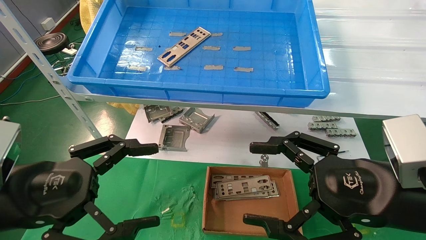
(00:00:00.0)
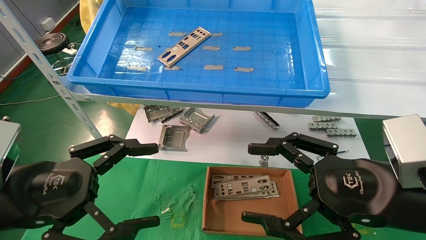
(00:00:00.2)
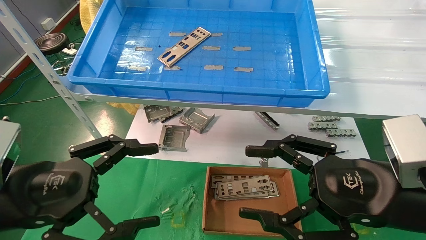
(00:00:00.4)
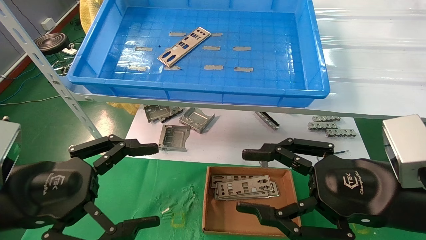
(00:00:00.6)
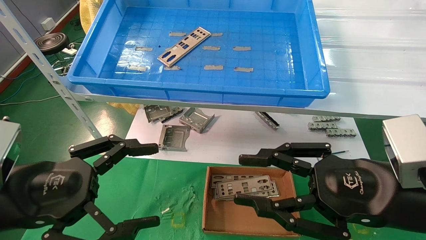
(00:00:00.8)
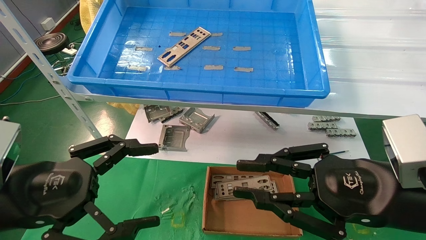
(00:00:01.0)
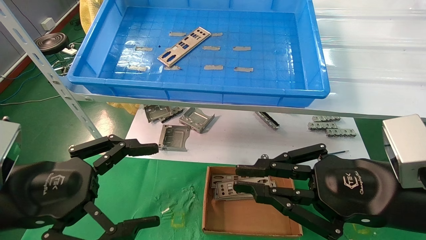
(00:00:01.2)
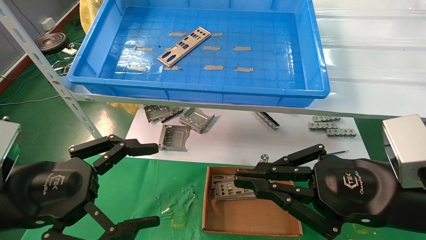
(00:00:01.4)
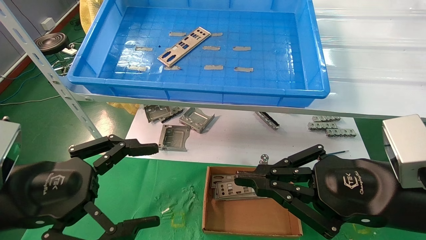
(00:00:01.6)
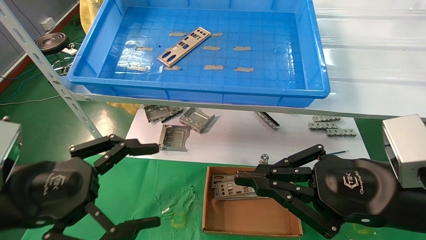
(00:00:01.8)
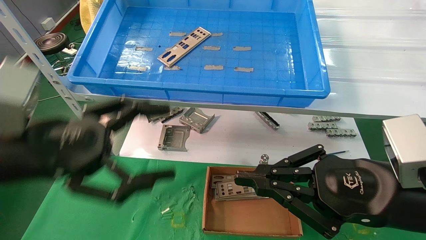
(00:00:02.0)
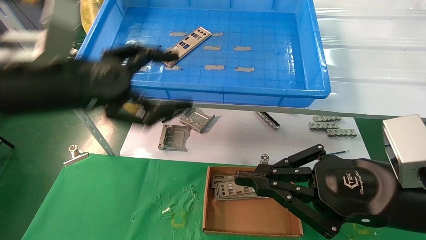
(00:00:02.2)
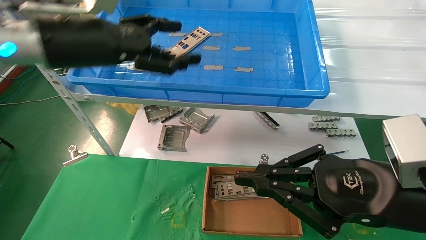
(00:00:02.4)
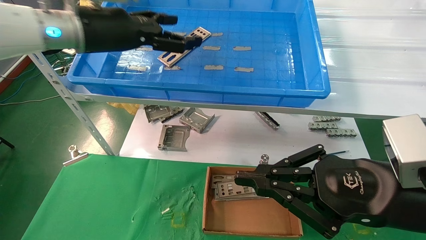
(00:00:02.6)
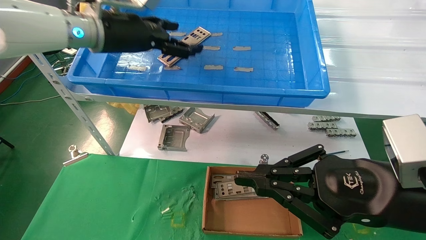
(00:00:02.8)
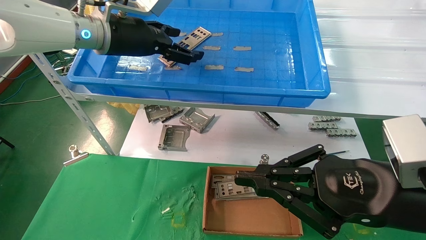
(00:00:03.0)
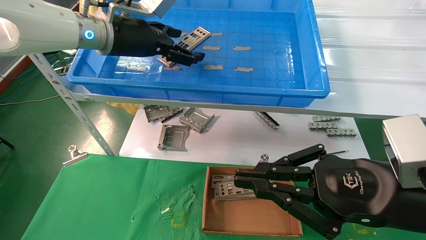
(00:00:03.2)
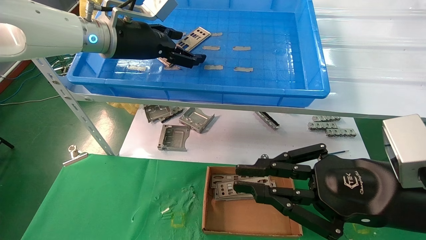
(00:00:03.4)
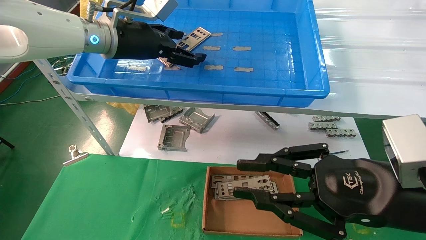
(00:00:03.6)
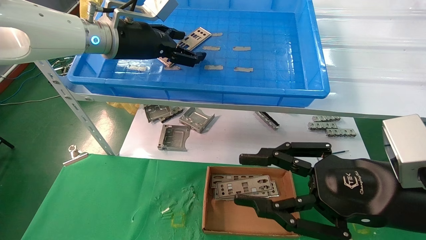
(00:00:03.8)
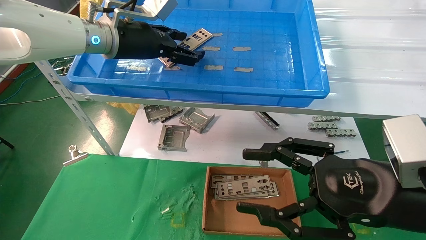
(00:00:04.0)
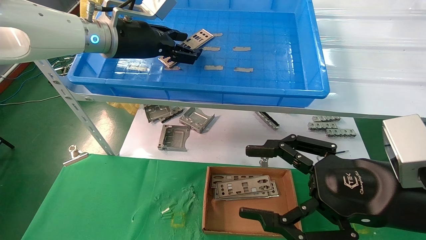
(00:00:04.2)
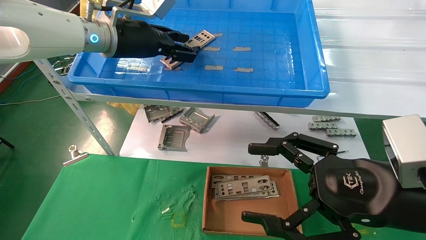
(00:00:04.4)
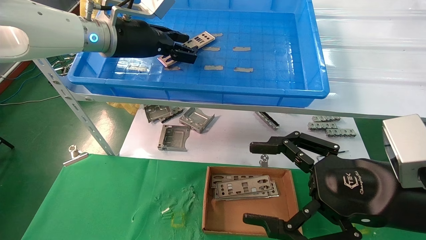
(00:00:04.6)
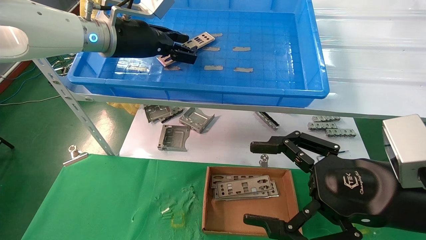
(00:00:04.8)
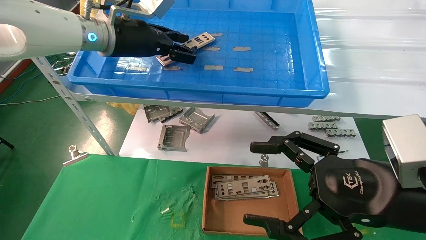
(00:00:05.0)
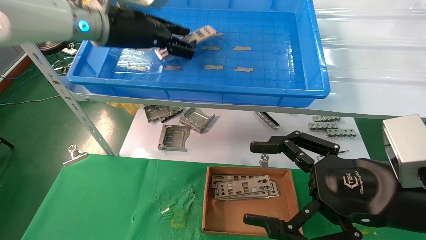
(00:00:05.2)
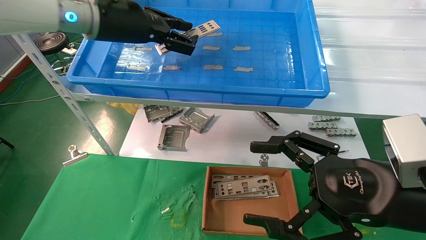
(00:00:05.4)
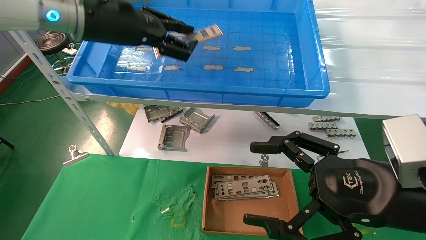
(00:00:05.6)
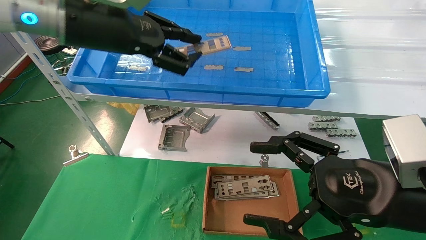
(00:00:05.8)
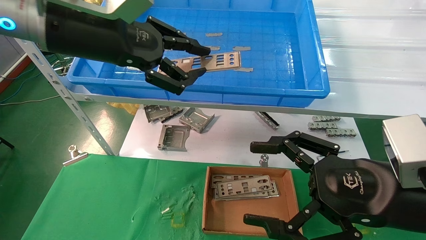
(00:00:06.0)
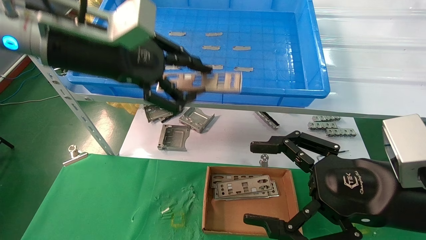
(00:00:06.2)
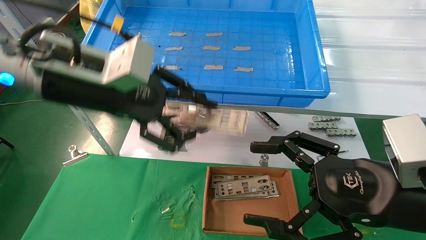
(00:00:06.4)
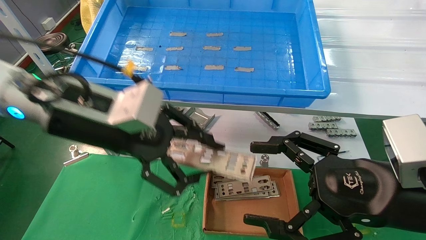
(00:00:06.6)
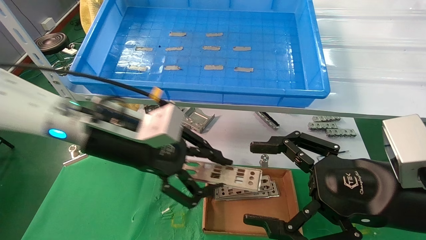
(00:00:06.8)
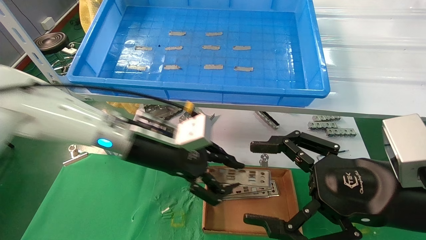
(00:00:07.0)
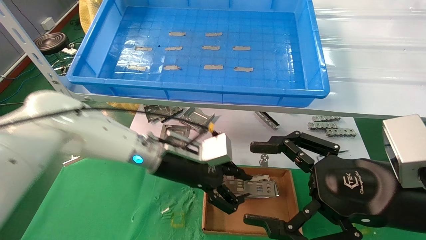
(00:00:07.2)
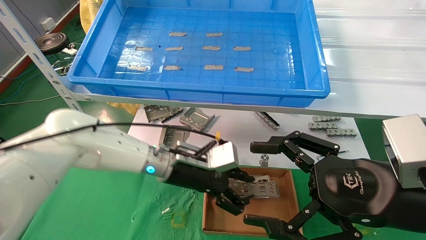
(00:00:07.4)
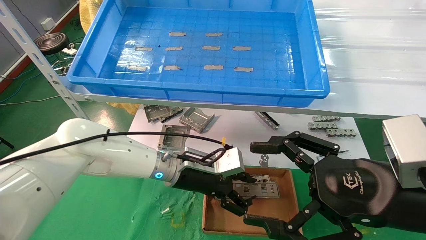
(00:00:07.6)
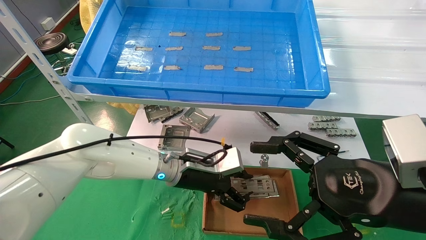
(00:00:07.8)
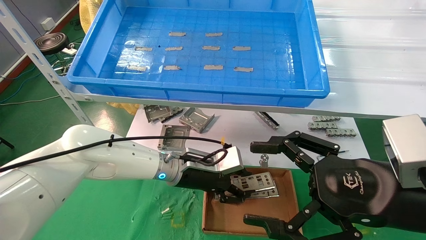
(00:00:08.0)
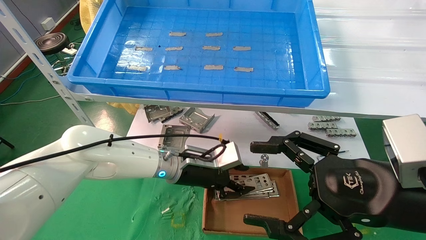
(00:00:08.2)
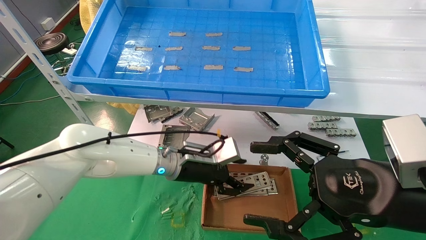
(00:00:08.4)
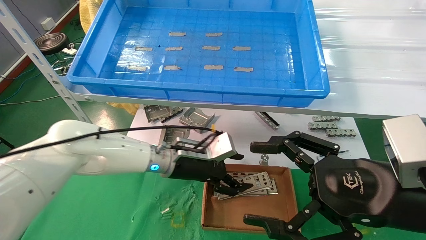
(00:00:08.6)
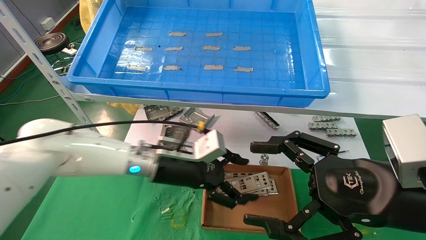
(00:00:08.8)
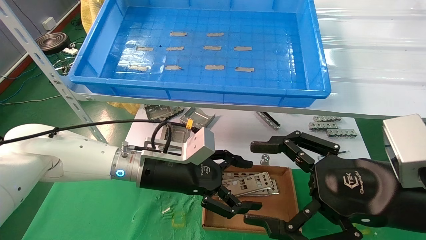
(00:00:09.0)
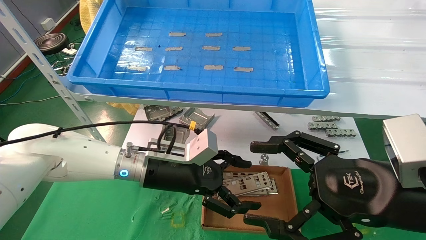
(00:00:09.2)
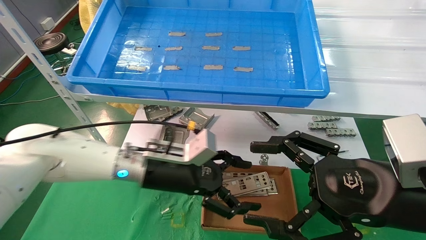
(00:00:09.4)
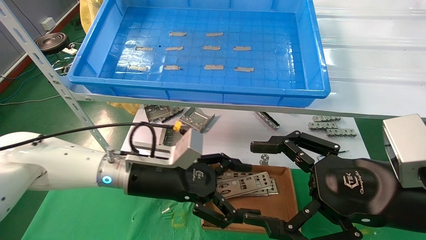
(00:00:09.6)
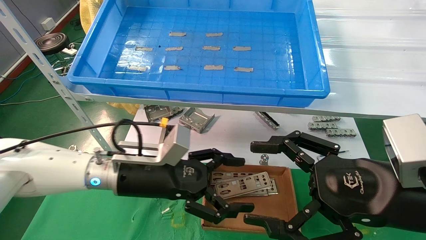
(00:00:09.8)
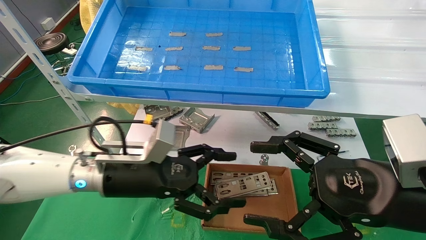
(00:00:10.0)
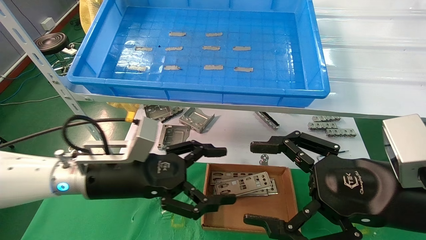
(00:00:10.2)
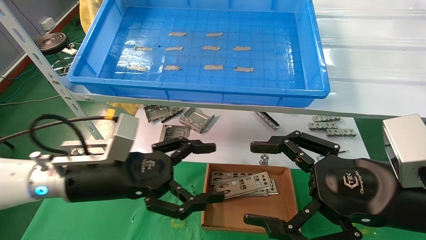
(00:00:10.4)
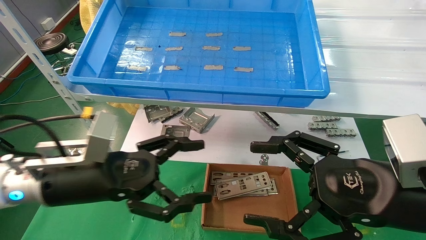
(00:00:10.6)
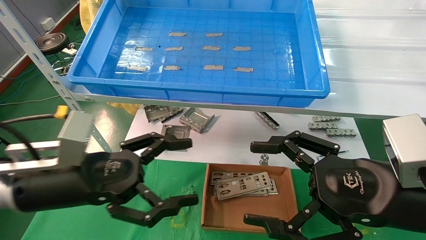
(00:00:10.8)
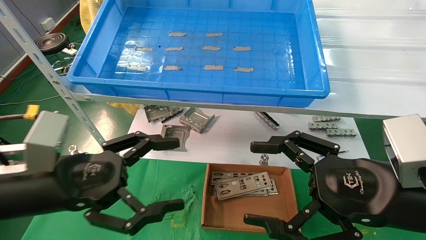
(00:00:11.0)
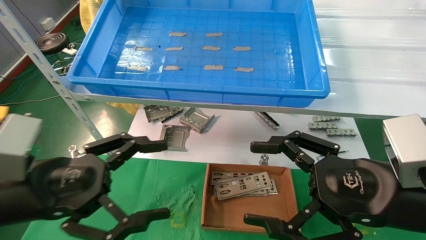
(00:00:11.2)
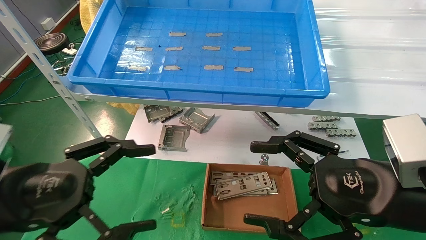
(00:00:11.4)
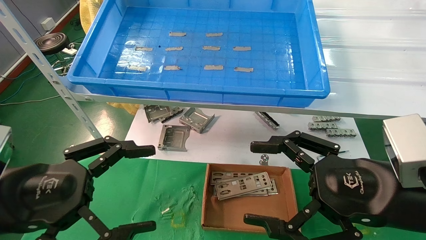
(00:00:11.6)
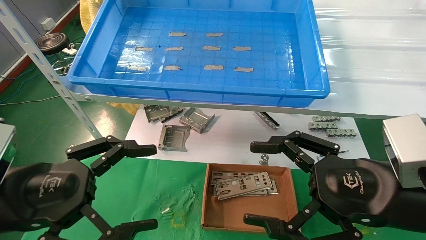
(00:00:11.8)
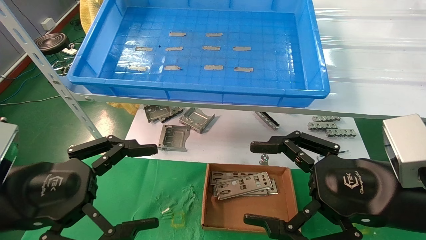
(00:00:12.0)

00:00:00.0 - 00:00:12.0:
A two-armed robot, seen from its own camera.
Task of the whole recording: pick up the parts on the tray and put them in the cardboard box.
Step, 00:00:02.2 - 00:00:04.4: Pick up the IO bracket from the container box.
Step, 00:00:04.6 - 00:00:08.6: Place the IO bracket into the ingredient slot.
00:00:00.0 - 00:00:01.6: The right gripper closes its fingers.
00:00:01.6 - 00:00:03.0: The left gripper heads forward, upward and to the right, covering some 30 cm.
00:00:03.0 - 00:00:04.4: The right gripper opens its fingers. The left gripper closes its fingers.
00:00:04.4 - 00:00:06.0: The left gripper travels backward by roughly 10 cm.
00:00:06.0 - 00:00:07.6: The left gripper travels downward and to the right by some 30 cm.
00:00:07.6 - 00:00:09.0: The left gripper shifts by some 5 cm, and opens its fingers.
00:00:09.0 - 00:00:10.4: The left gripper is displaced to the left and backward by some 10 cm.
00:00:10.4 - 00:00:12.0: The left gripper heads backward and to the left, covering approximately 15 cm.

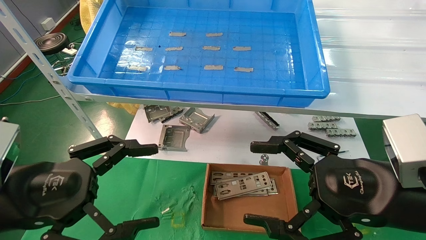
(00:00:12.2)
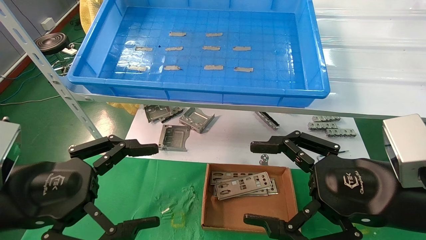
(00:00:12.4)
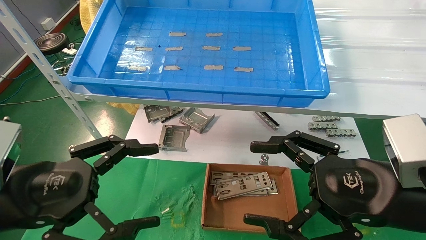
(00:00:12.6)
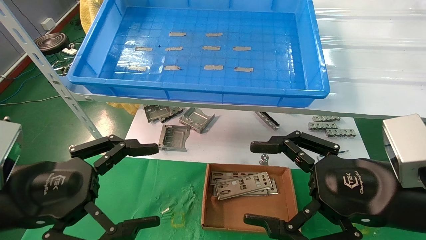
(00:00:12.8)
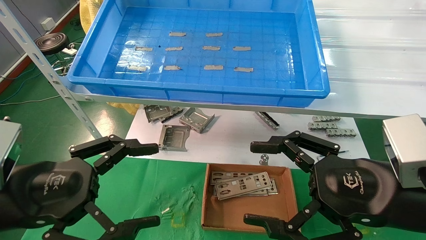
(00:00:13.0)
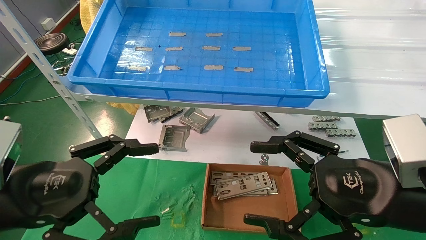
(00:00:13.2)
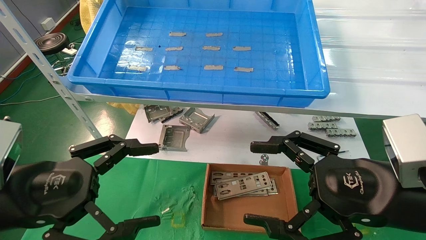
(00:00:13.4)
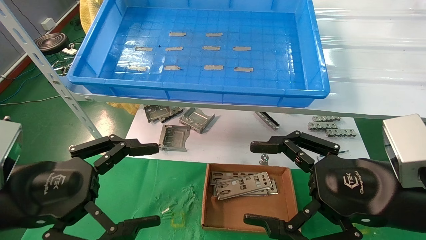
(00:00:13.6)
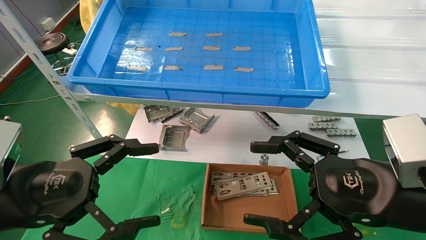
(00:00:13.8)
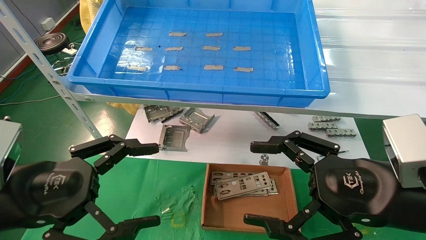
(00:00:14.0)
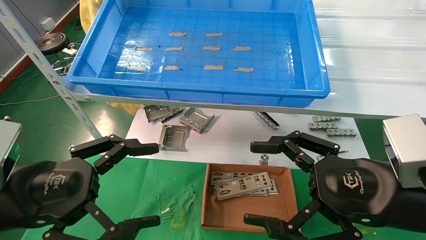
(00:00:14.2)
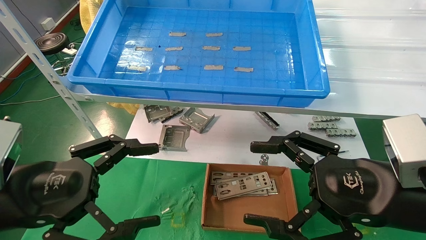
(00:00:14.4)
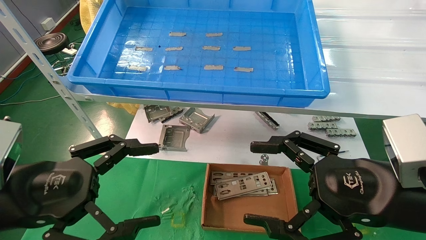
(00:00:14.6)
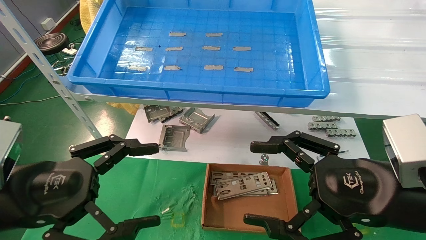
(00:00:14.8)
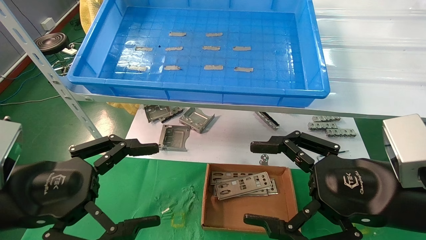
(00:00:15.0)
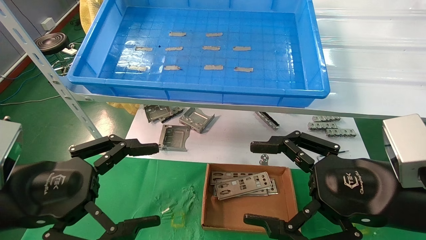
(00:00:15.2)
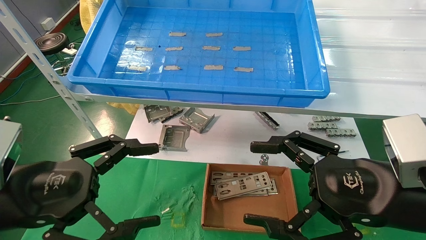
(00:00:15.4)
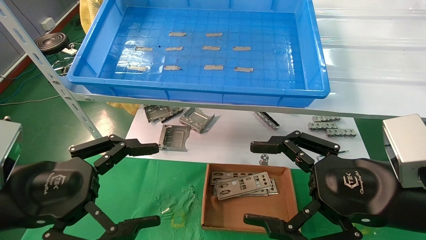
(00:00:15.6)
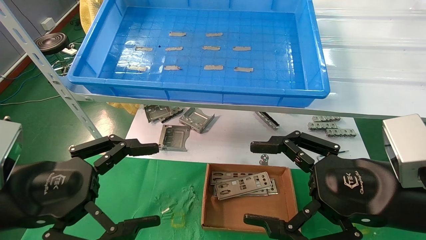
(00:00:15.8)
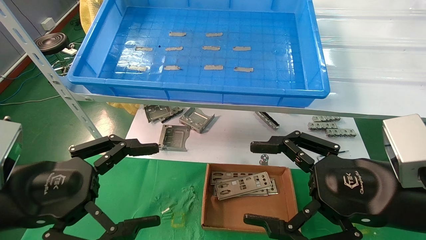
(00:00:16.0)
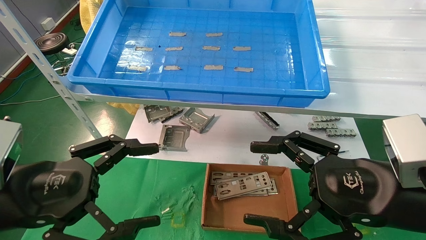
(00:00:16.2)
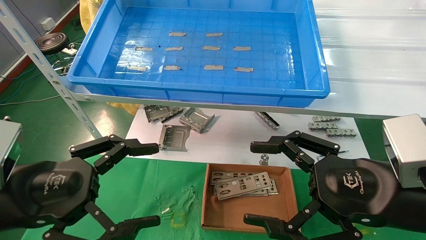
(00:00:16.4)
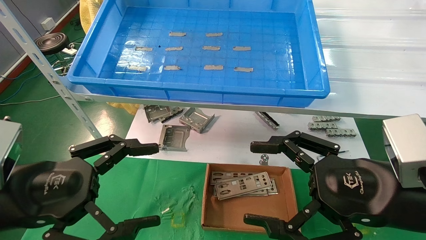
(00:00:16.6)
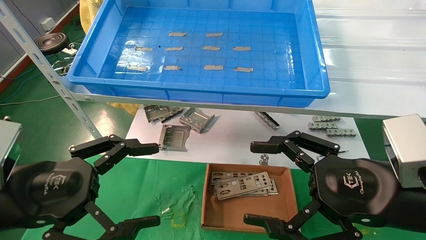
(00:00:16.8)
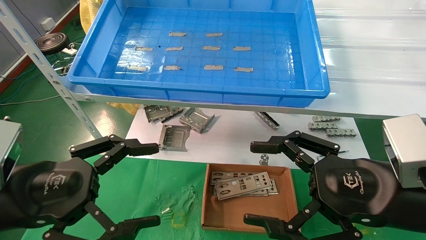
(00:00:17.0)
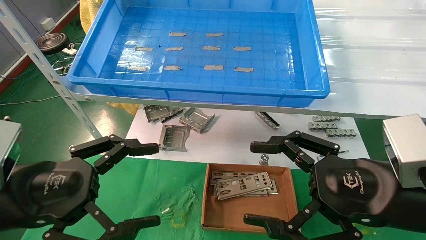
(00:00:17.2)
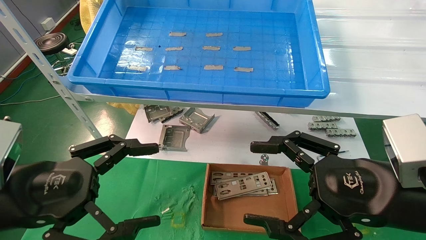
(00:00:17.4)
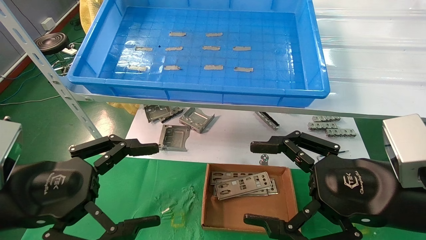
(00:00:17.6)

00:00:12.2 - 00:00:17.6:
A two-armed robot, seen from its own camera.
Task of the whole recording: pick up the parts on the tray and put them in the cardboard box.
00:00:12.2 - 00:00:17.6: Both grippers stay put.
